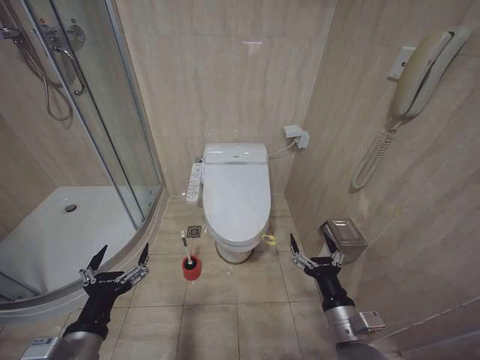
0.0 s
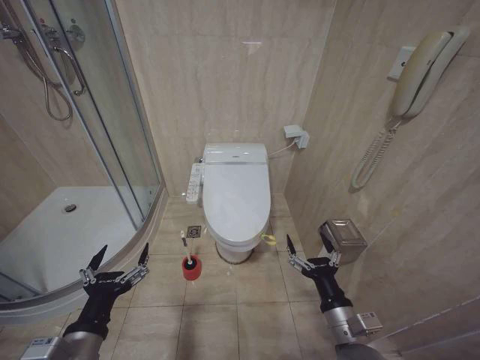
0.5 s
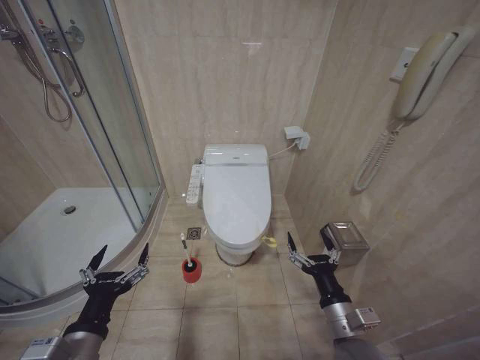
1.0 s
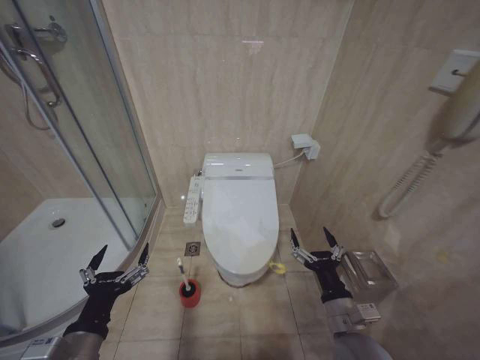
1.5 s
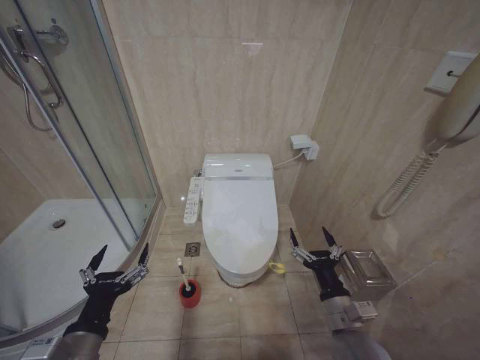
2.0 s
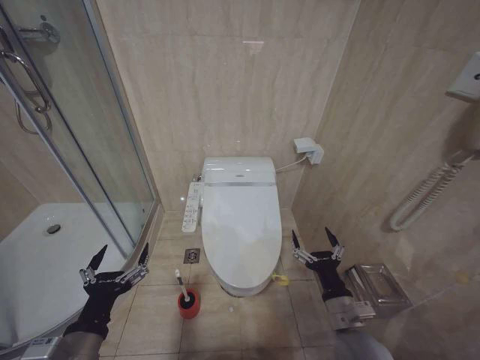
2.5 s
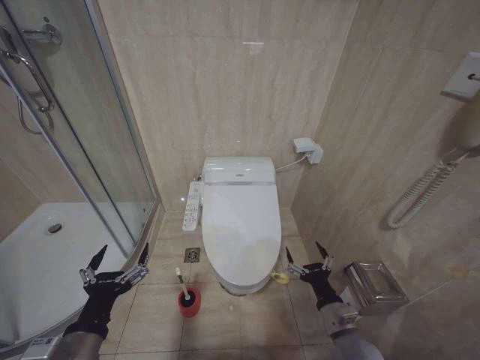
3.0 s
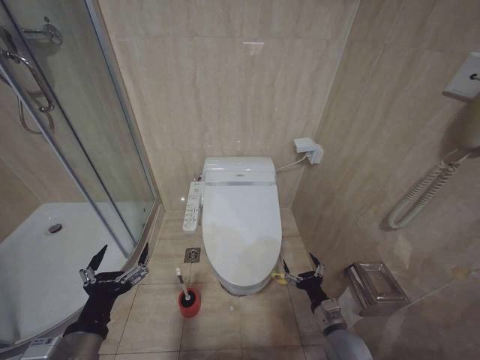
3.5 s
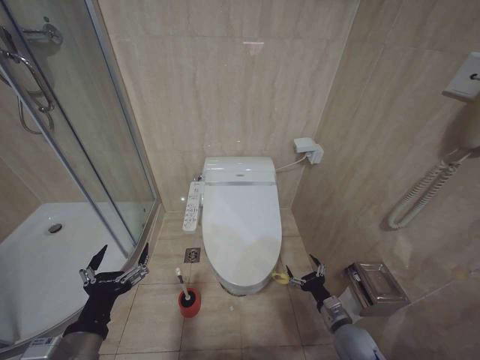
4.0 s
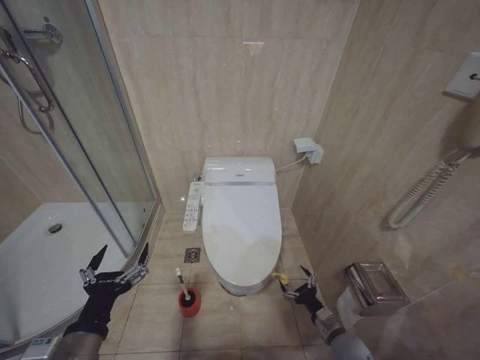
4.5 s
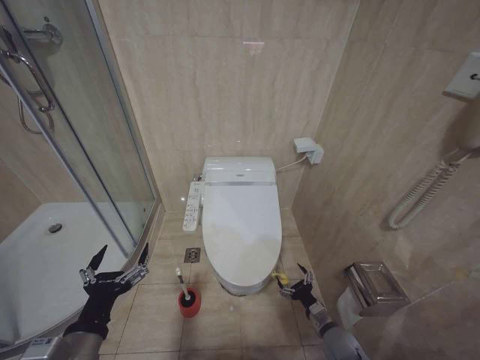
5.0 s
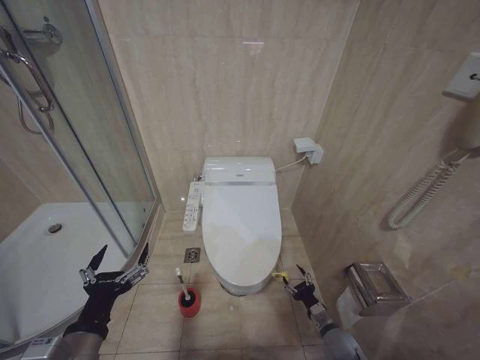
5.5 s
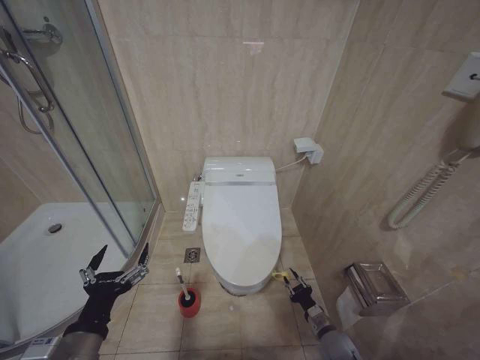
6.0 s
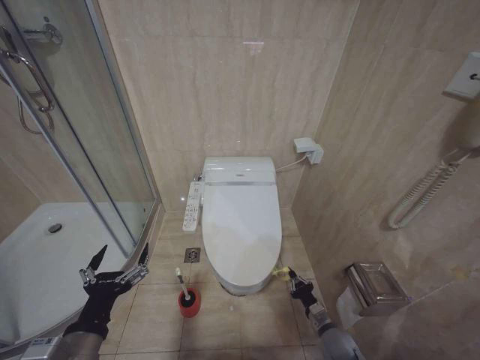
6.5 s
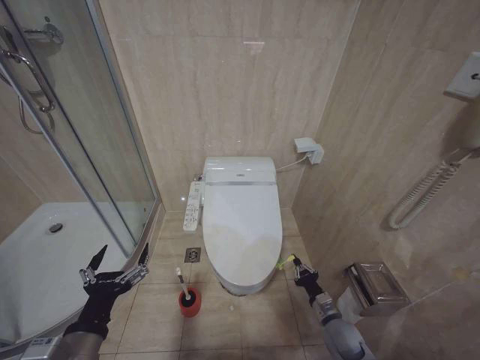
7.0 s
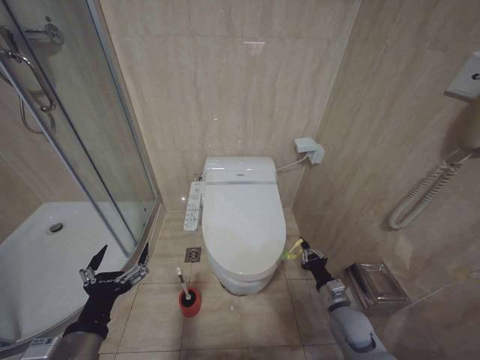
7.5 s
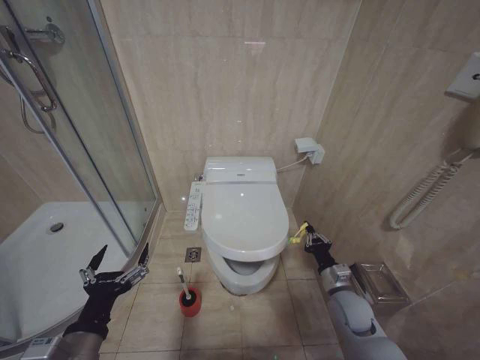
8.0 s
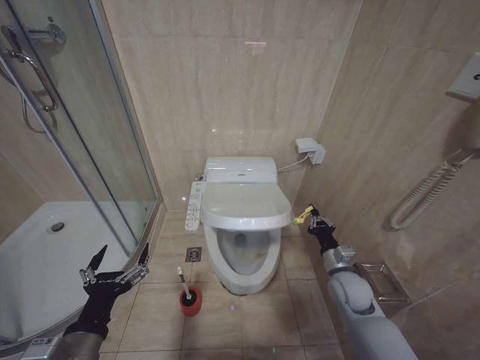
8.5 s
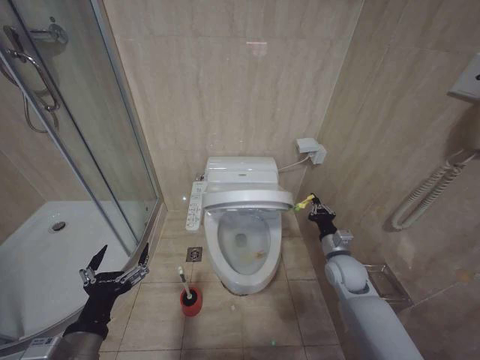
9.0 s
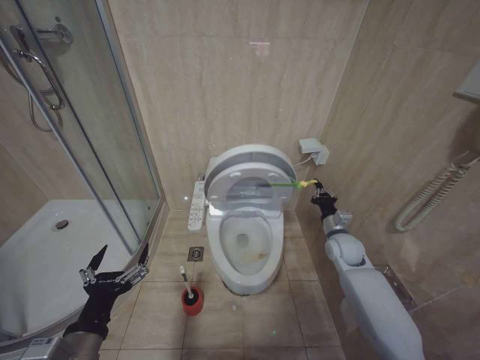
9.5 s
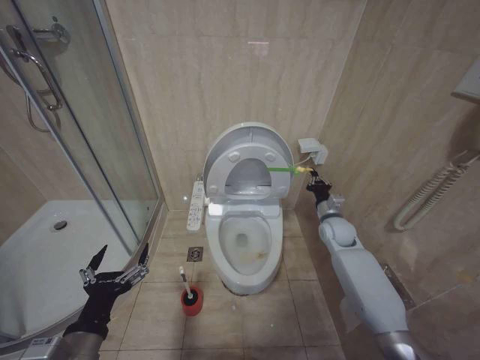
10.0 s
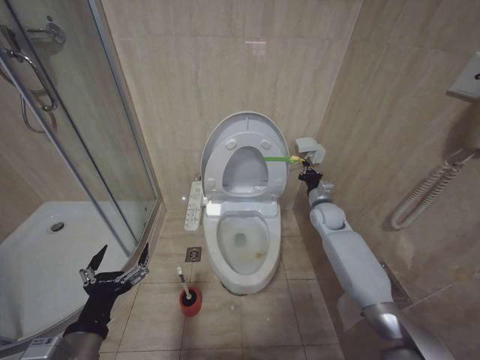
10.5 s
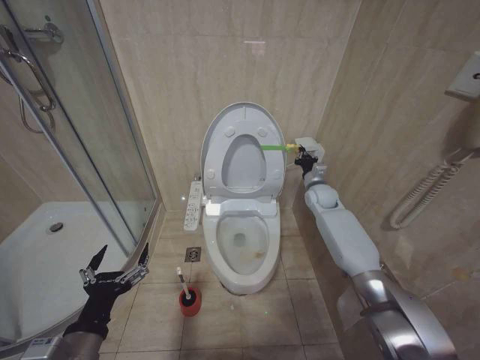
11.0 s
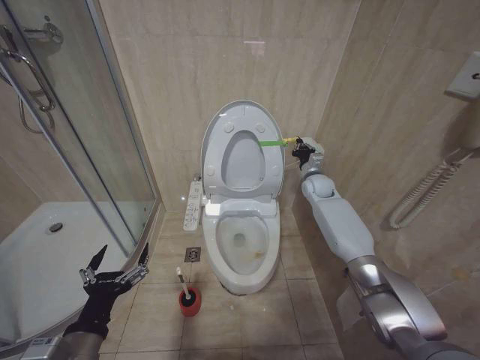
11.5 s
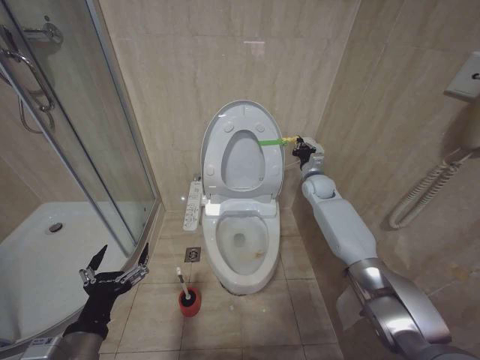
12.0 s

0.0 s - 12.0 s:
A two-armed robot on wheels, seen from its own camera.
Task of the whole recording: Open the toilet lid, clean the toilet bowl with a toilet brush, close the toilet lid, and flush.
2.0 s - 4.0 s: The right gripper goes roughly 15 cm downward and to the right.
4.0 s - 6.0 s: The right gripper heads downward, covering roughly 10 cm, and closes its fingers.
6.0 s - 8.0 s: The right gripper is displaced upward by about 15 cm, and closes up.
8.0 s - 10.0 s: The right gripper goes about 20 cm forward and upward.
10.0 s - 12.0 s: The right gripper moves forward and upward, about 15 cm.

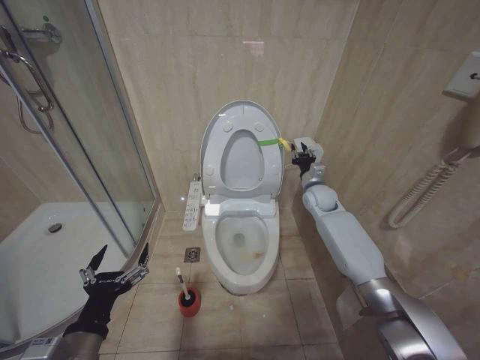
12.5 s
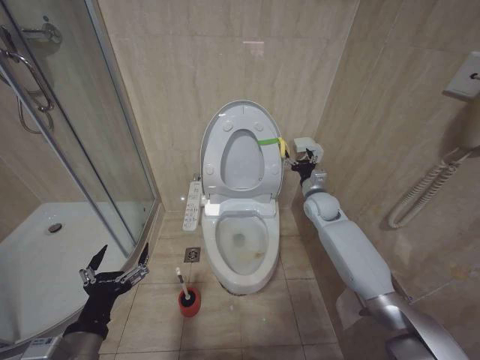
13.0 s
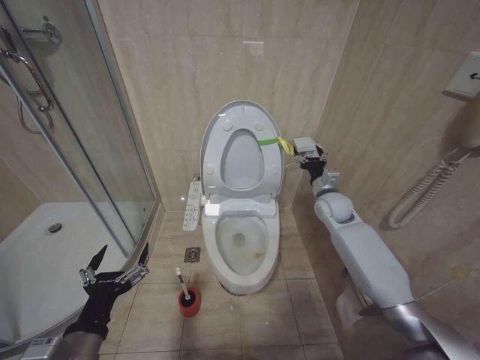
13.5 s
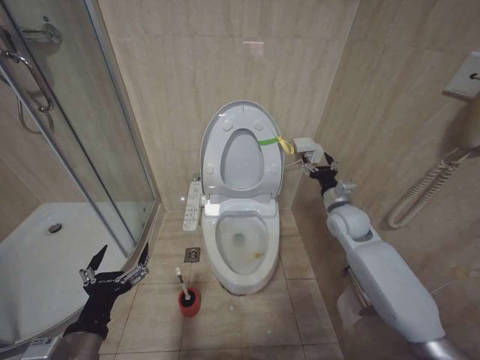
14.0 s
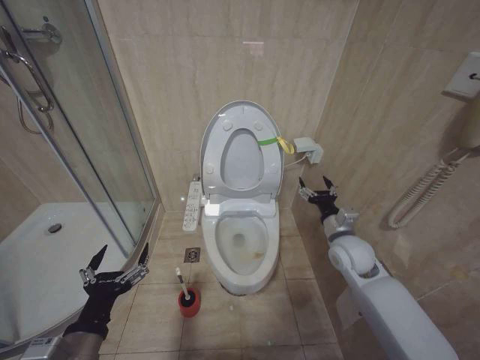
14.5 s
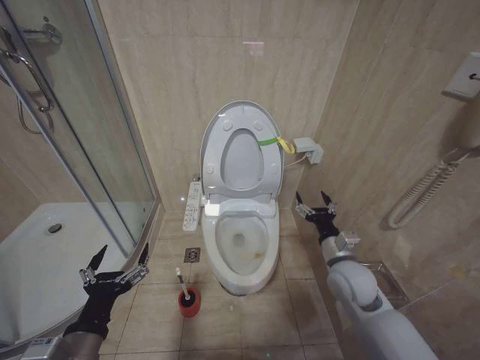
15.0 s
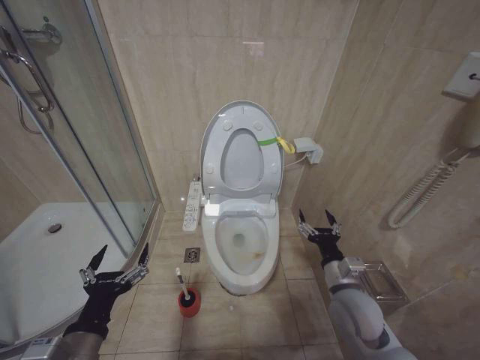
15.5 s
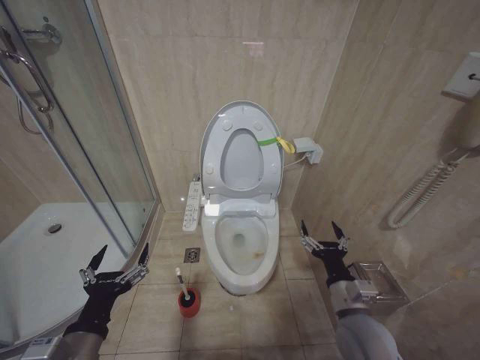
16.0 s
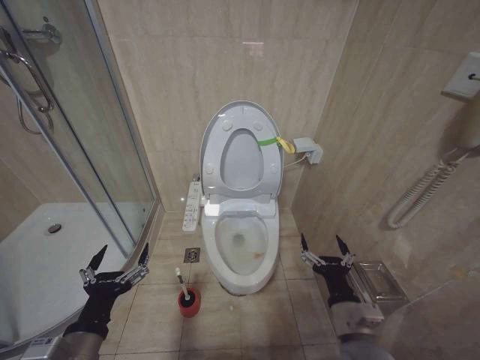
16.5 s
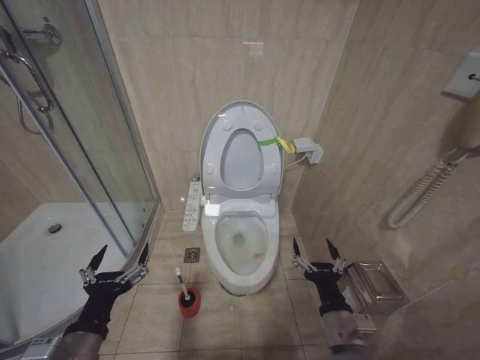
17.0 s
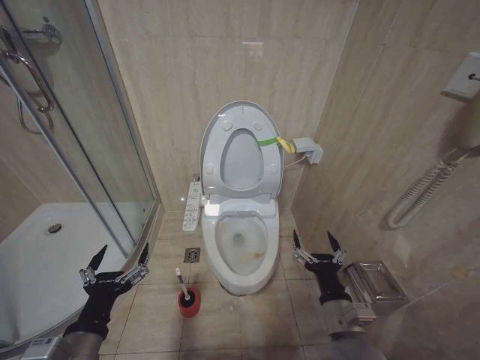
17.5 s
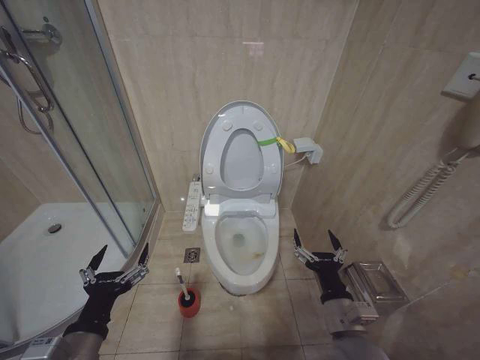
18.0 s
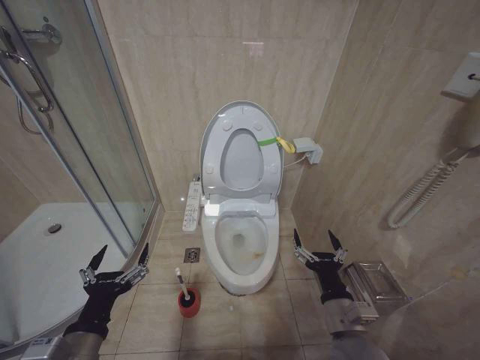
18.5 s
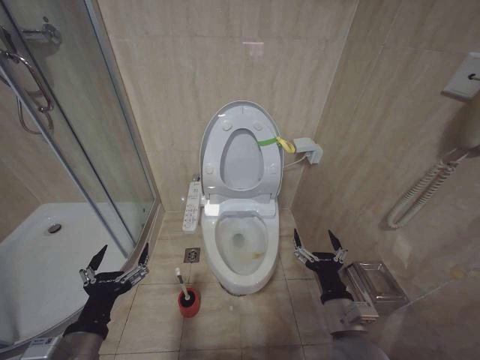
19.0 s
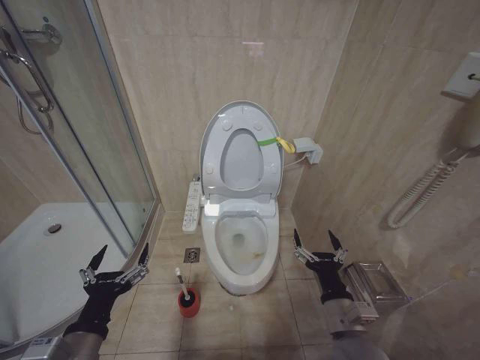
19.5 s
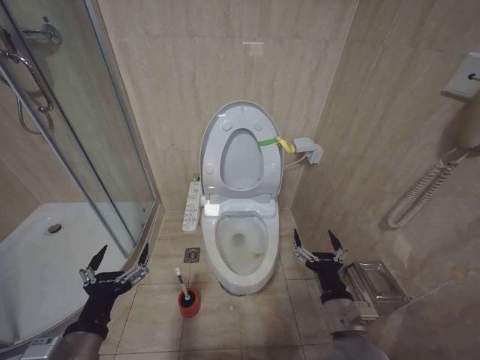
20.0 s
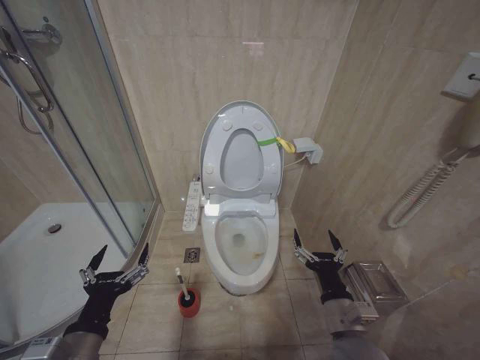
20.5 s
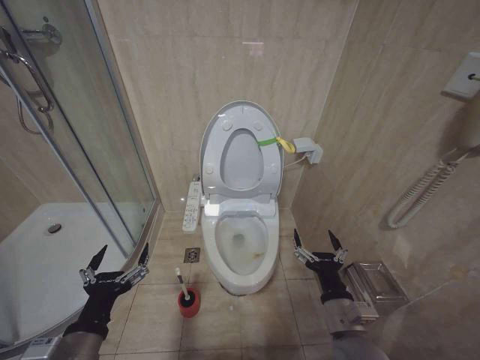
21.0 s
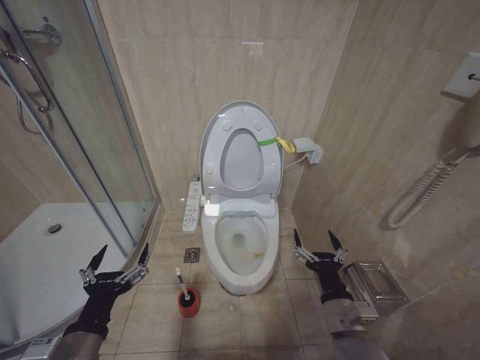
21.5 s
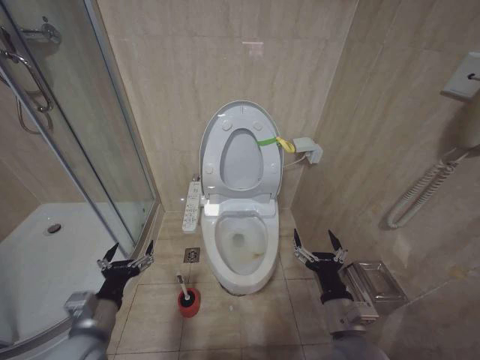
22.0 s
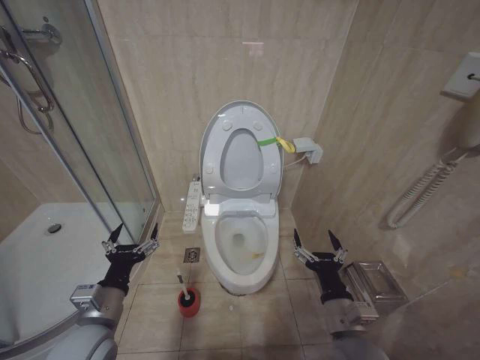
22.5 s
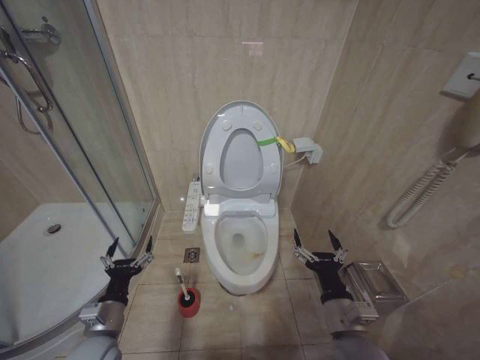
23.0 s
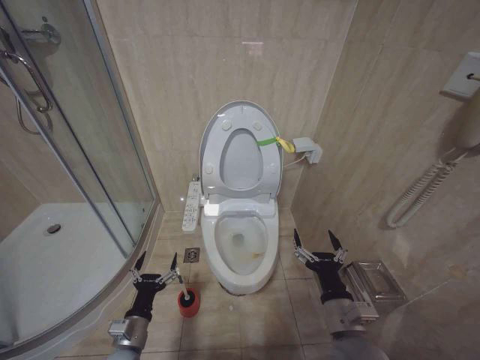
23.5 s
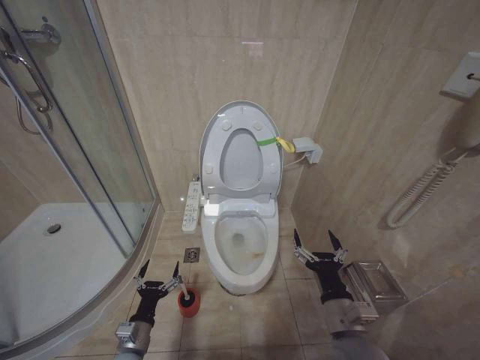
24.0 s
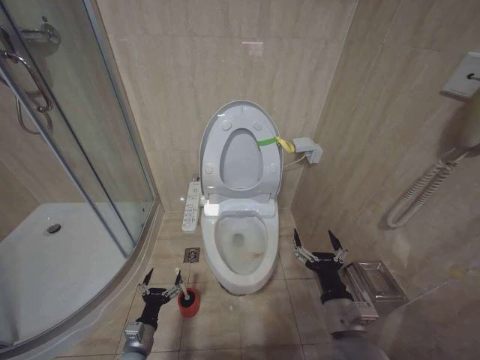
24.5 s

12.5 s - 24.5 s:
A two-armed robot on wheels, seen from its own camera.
Task of the whole recording: Open the toilet lid, clean the toilet bowl with a toilet brush, close the toilet lid, and flush.
12.5 s - 14.5 s: The right gripper moves backward, about 15 cm, and opens up.
14.5 s - 16.5 s: The right gripper moves backward, roughly 20 cm.
18.5 s - 20.5 s: Both grippers stay put.
20.5 s - 22.5 s: The left gripper is displaced forward by roughly 10 cm.
22.5 s - 24.5 s: The left gripper is displaced downward by about 25 cm.

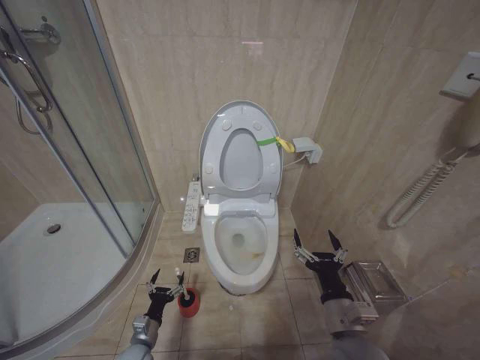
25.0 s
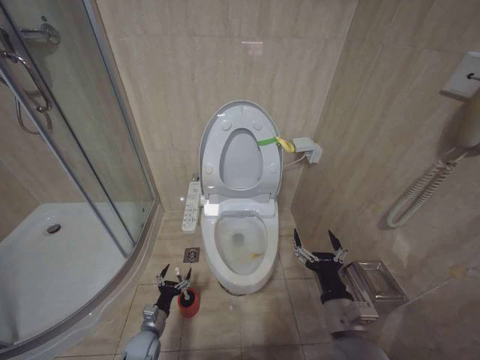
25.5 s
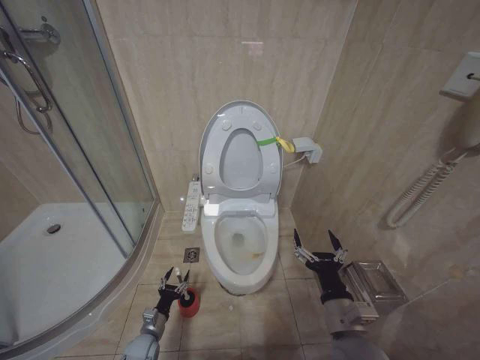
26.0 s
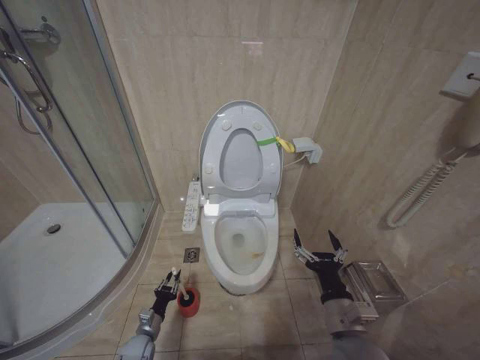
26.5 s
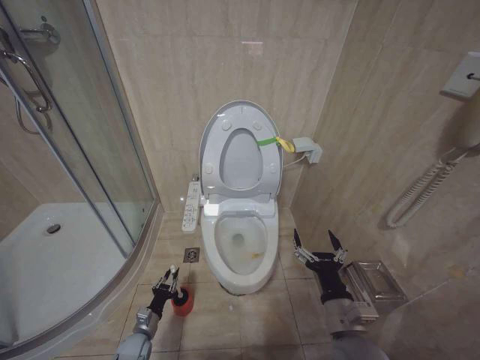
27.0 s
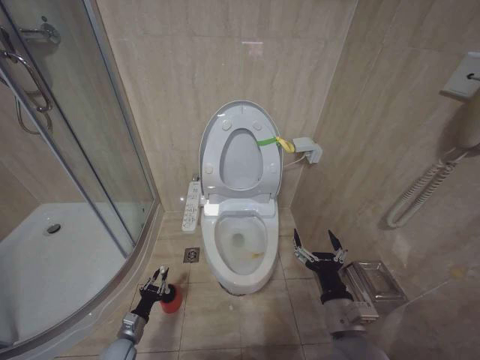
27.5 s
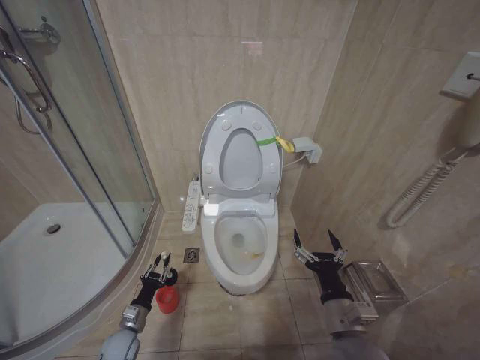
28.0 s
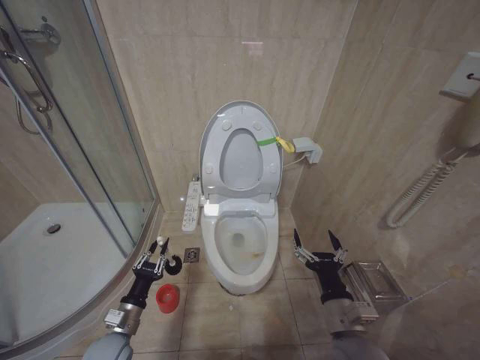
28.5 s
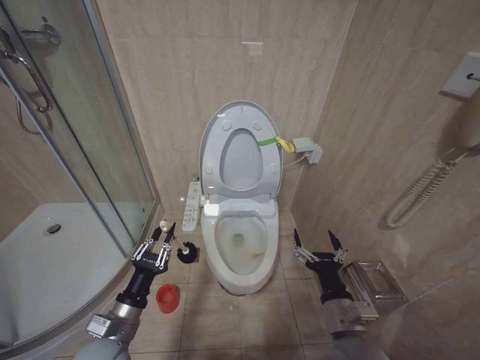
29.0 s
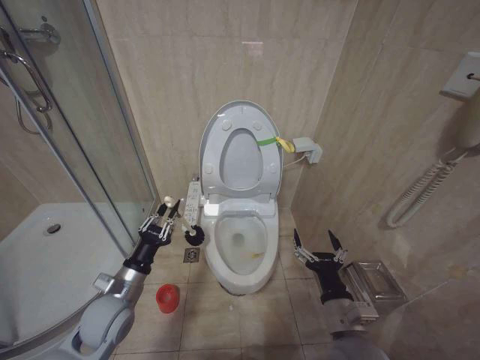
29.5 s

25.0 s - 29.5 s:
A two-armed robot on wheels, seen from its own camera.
Task of the whole recording: Open the toilet lid, clean the toilet bowl with a toilet brush, close the toilet lid, and flush.
25.0 s - 27.0 s: The left gripper shifts some 5 cm downward, and closes its fingers.
27.0 s - 29.5 s: The left gripper is displaced upward by approximately 30 cm.
